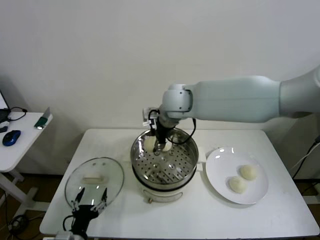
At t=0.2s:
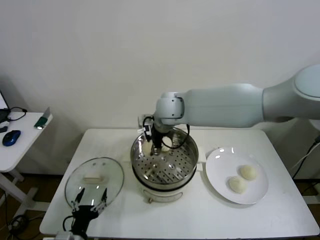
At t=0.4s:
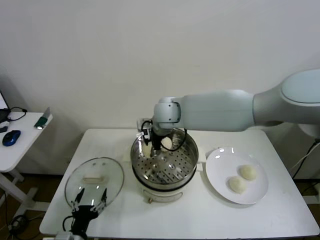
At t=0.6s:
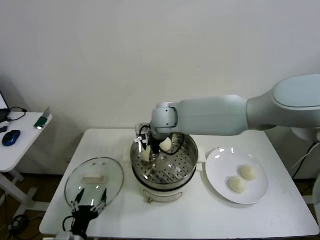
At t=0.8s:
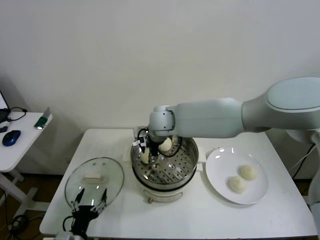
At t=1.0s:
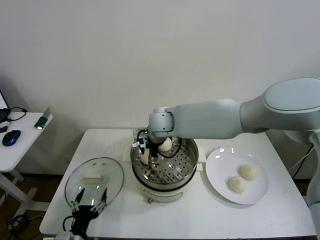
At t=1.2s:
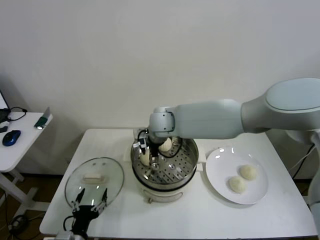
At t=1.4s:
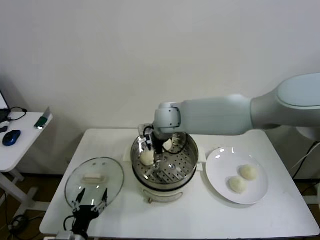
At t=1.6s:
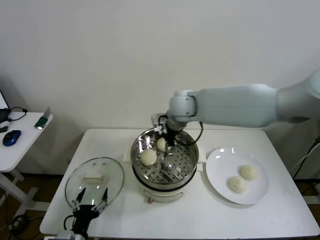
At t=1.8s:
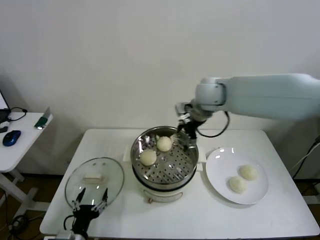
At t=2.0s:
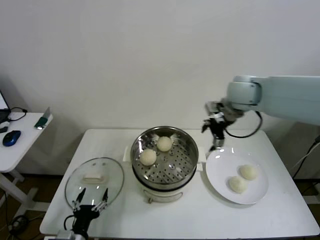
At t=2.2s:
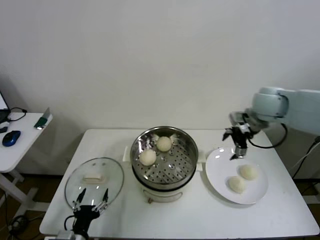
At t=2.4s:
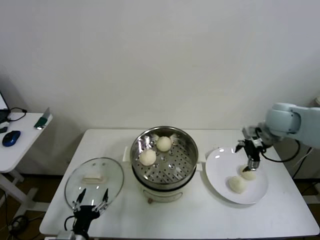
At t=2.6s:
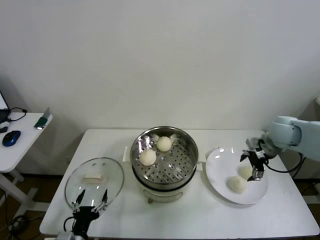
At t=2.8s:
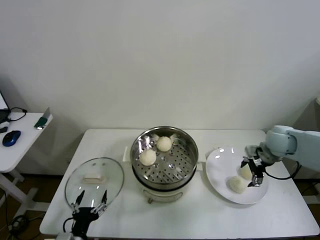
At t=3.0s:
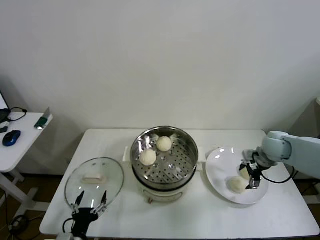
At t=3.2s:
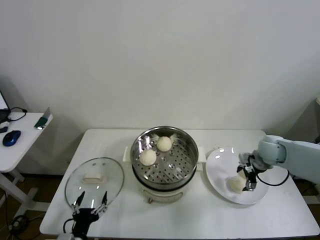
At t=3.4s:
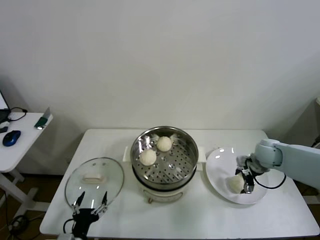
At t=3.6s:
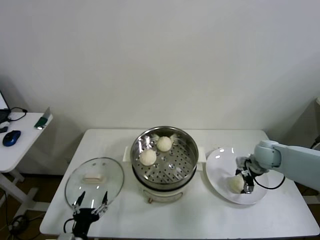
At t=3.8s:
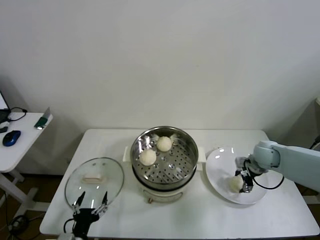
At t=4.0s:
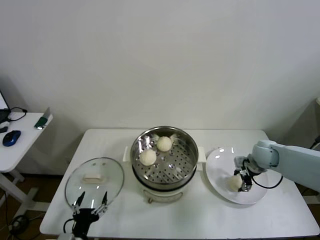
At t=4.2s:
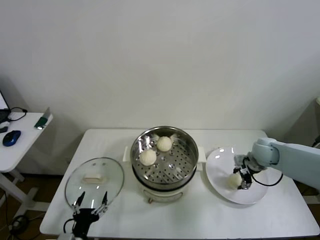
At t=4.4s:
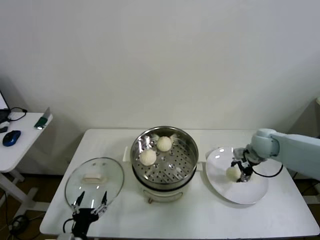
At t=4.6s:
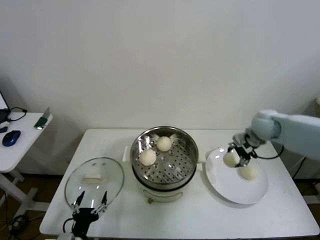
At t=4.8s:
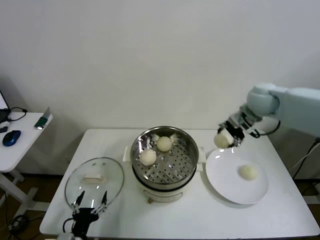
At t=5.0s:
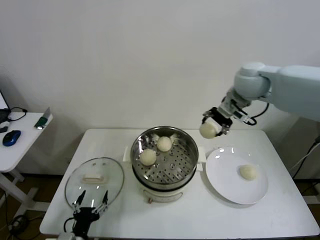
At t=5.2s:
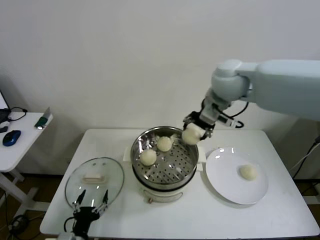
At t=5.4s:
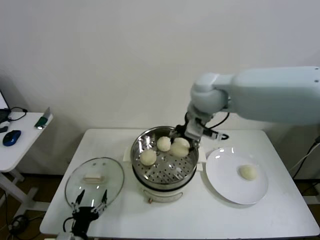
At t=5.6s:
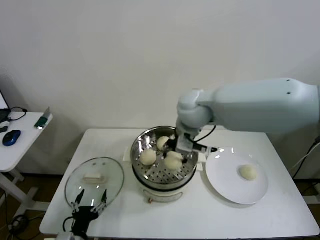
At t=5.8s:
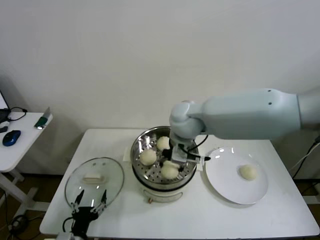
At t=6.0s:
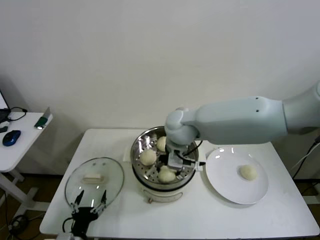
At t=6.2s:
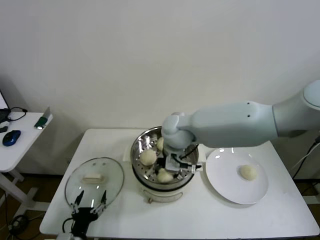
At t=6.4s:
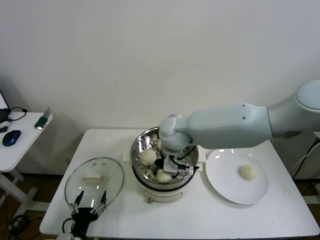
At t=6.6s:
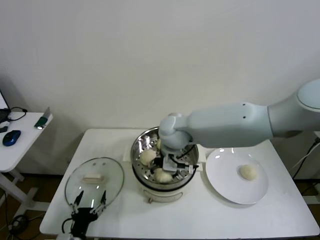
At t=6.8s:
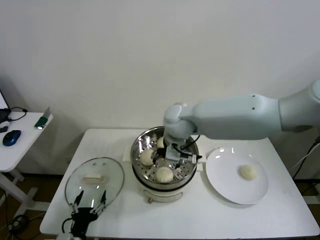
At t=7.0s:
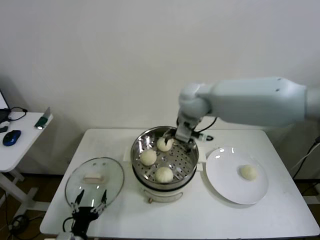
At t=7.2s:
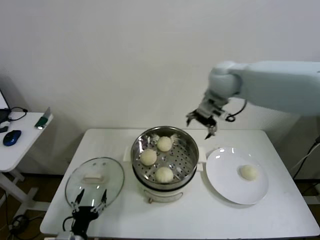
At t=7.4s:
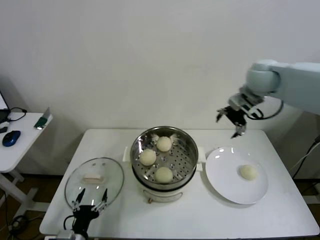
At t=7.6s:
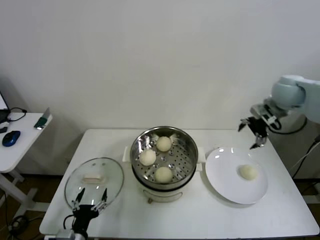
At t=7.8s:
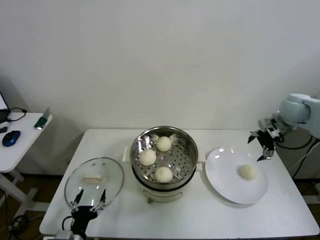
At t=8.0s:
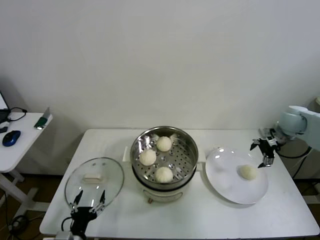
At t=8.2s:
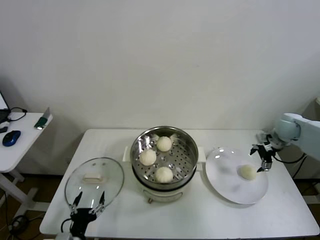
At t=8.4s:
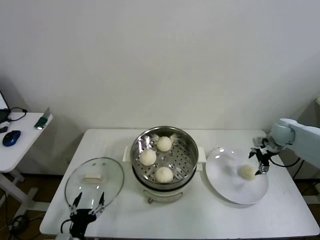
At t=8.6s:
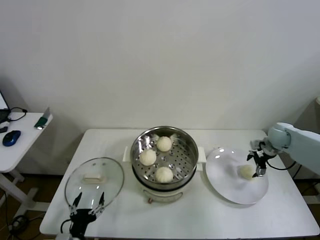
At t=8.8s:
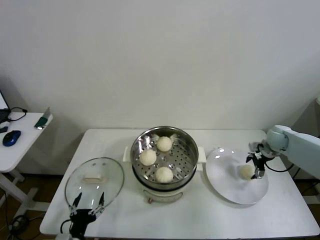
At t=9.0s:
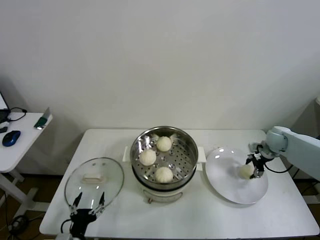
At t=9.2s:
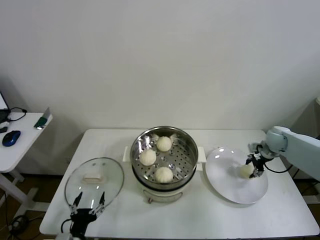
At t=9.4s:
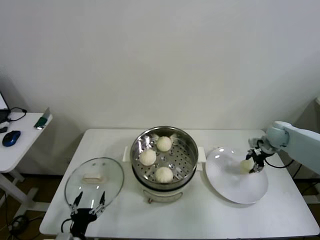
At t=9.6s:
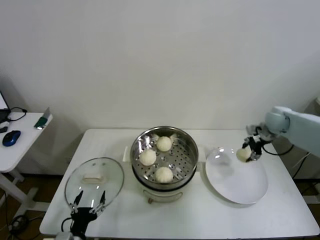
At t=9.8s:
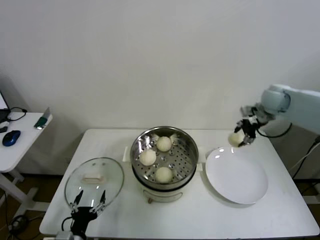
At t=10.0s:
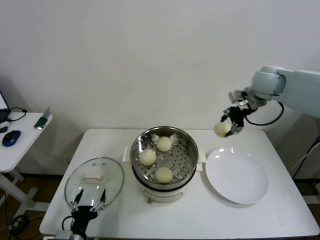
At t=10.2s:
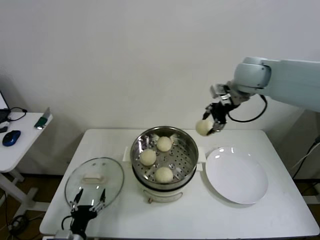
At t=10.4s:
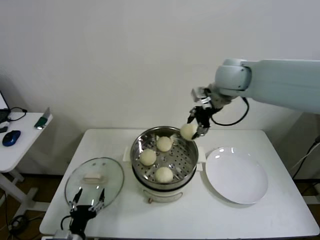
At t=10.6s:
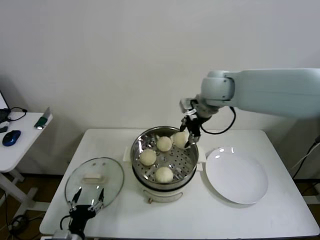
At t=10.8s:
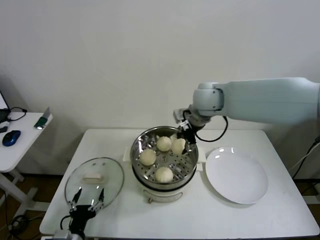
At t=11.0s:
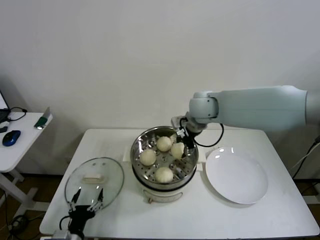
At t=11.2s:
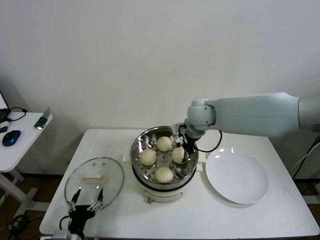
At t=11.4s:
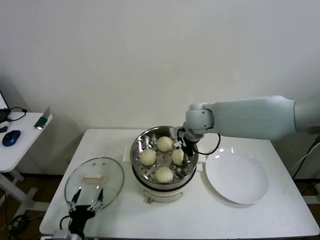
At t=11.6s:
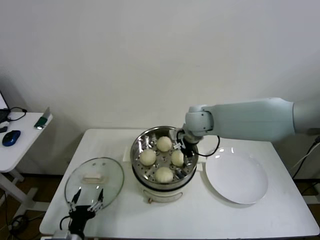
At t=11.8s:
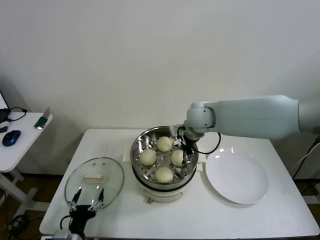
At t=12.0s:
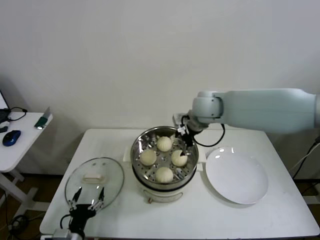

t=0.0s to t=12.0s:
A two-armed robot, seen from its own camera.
Step, t=1.6s to t=3.8s: Grasp the baozi in the plate with right gripper.
Step, t=4.2s to t=6.6s: Place the baozi on the steamer with right gripper.
Step, t=7.0s to t=9.0s: Grasp the baozi in the plate with right gripper.
Step, t=9.4s to t=11.8s: Place the baozi on the steamer with right gripper.
t=0.0s to t=1.6s: The right gripper goes about 5 cm to the right, and opens.
t=1.6s to t=3.0s: The right gripper heads to the right and downward, covering about 35 cm.
t=3.0s to t=4.4s: The right gripper closes up.
t=4.4s to t=6.0s: The right gripper shifts approximately 30 cm to the left.
t=6.0s to t=7.6s: The right gripper shifts approximately 35 cm to the right, and opens up.
t=7.6s to t=9.0s: The right gripper travels downward by roughly 20 cm, and closes.
t=9.0s to t=10.4s: The right gripper travels upward and to the left by roughly 40 cm, and closes.
t=10.4s to t=12.0s: The right gripper shifts about 10 cm downward and to the left, and opens up.

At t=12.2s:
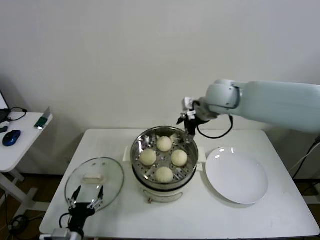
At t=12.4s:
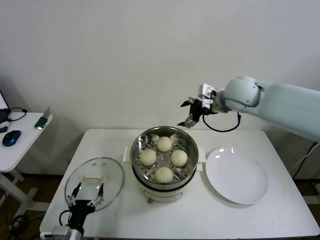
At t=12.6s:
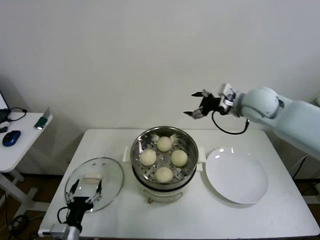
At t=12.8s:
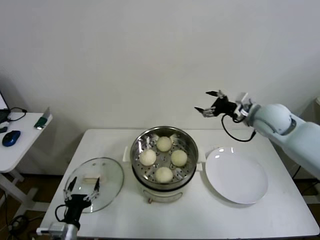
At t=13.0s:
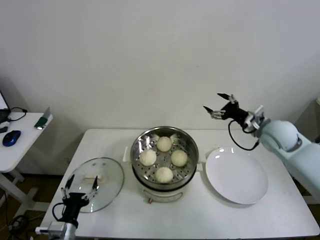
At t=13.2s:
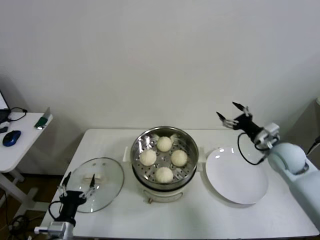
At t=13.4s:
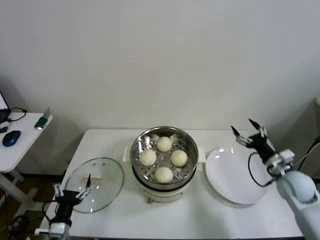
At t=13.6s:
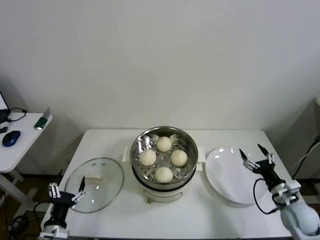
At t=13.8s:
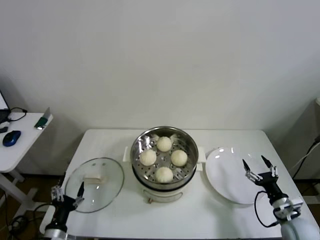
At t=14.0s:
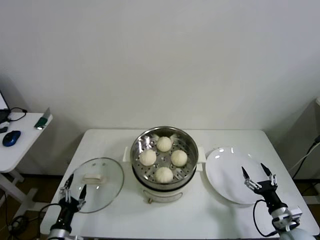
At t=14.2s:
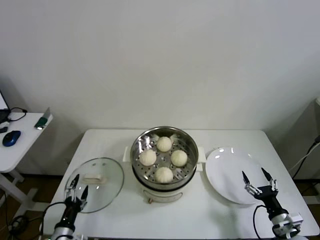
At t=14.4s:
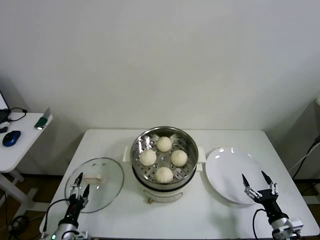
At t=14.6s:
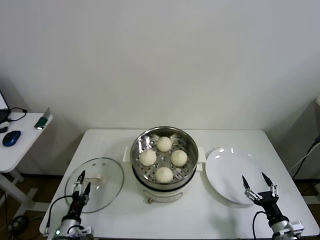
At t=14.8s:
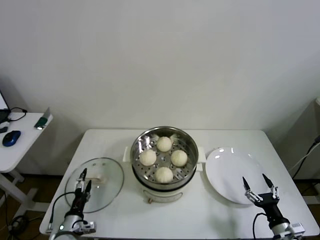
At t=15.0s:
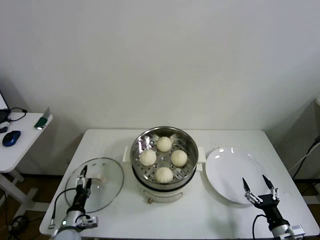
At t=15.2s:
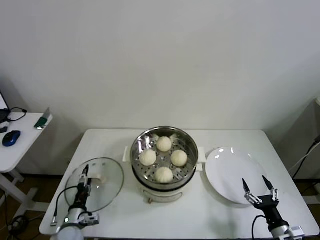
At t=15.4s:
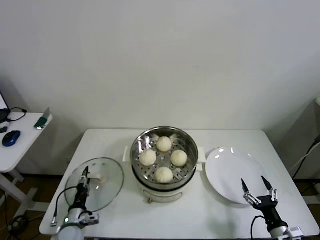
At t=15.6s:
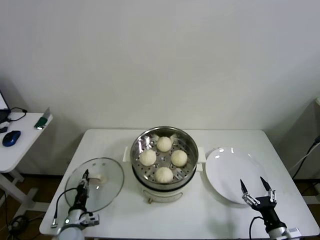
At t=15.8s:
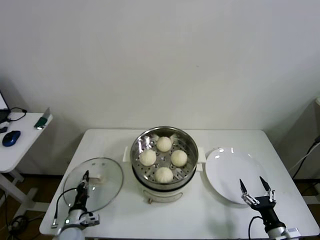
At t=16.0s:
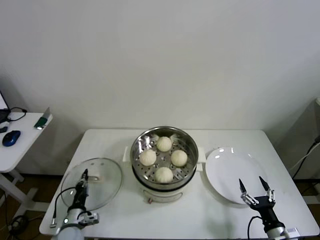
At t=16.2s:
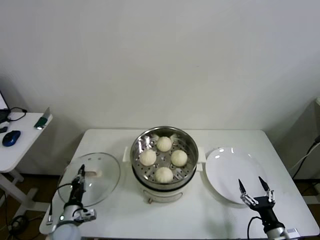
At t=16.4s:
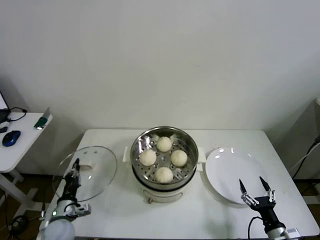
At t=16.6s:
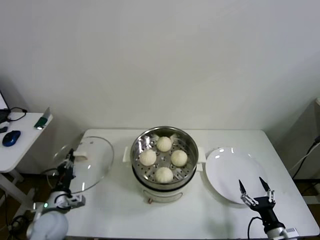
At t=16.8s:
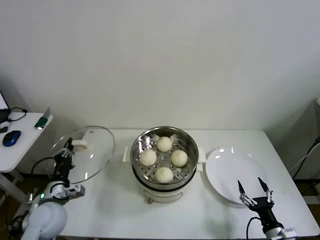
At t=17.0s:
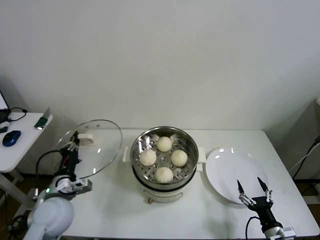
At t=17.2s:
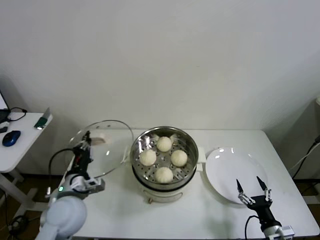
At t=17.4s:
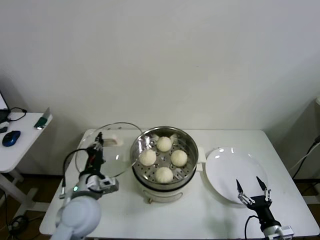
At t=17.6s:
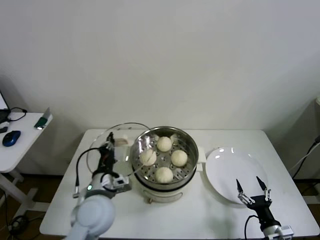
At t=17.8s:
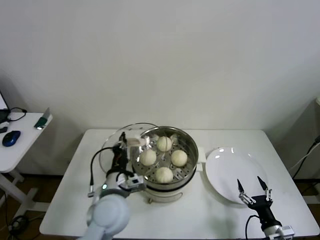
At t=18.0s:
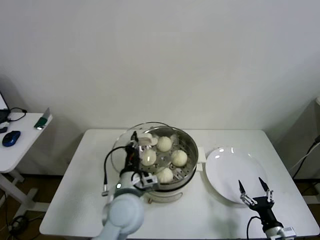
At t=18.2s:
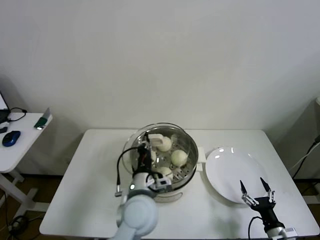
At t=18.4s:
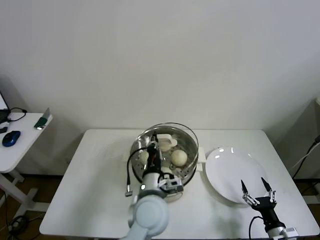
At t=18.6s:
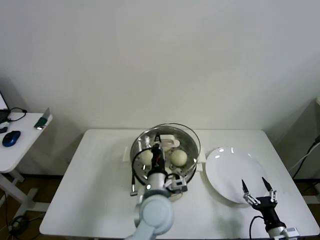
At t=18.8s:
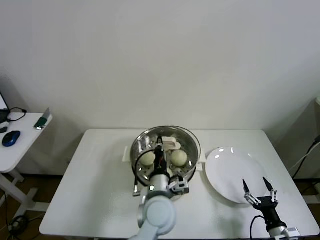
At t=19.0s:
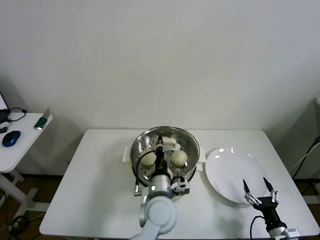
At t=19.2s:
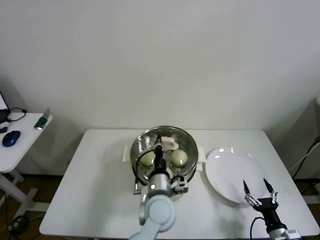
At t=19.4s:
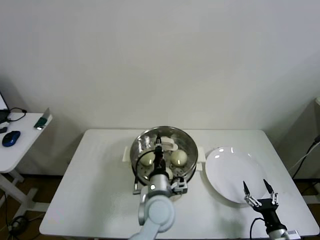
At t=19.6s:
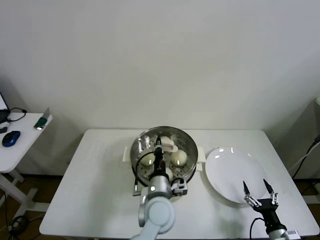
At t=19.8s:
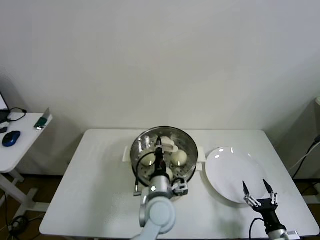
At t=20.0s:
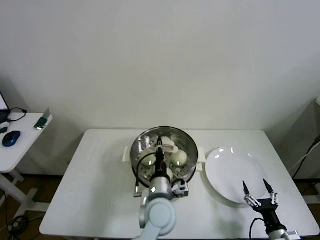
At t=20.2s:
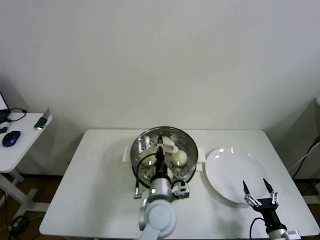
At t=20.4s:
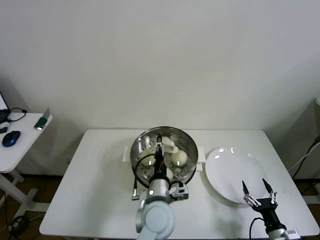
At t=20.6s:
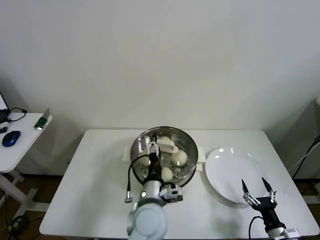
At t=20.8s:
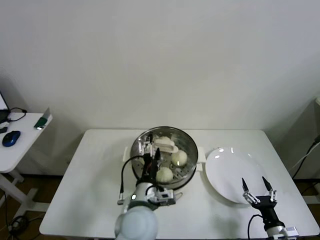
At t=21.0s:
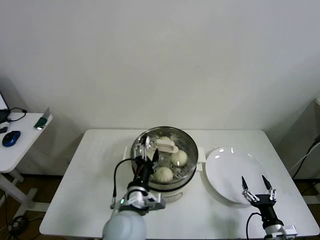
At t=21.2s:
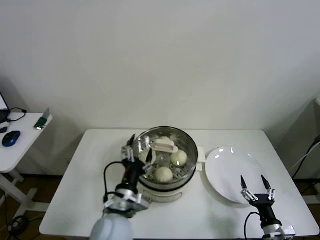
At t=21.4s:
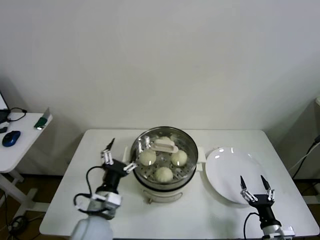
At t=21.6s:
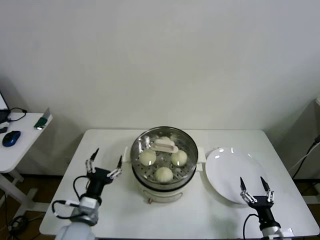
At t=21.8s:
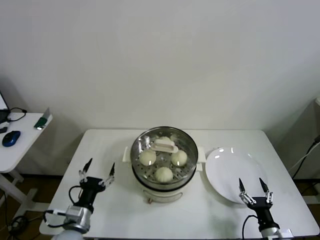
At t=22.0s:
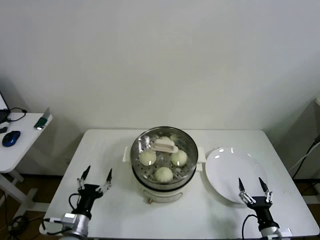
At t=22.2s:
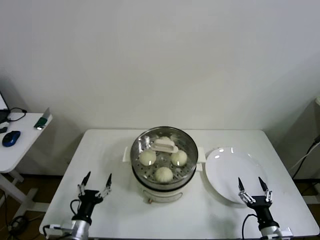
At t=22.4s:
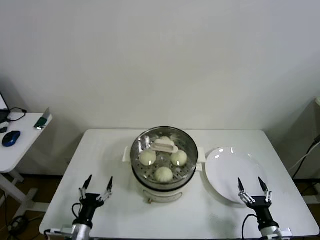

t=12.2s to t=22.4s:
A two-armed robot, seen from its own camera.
Step, t=12.2s to t=15.6s: Grasp the pot lid with left gripper.
Step, t=15.8s to t=20.0s: Place the pot lid on the steamer with left gripper.
t=12.2s to t=13.6s: The left gripper goes roughly 5 cm to the left. The right gripper travels downward, to the right and backward by about 50 cm.
t=13.6s to t=15.2s: The left gripper travels downward and forward by approximately 10 cm; the right gripper moves backward and downward, roughly 15 cm.
t=15.2s to t=16.6s: The left gripper is displaced upward by roughly 10 cm, and closes its fingers.
t=16.6s to t=18.0s: The left gripper goes approximately 25 cm to the right and upward.
t=18.0s to t=19.4s: The left gripper goes about 10 cm to the right.
t=19.4s to t=21.0s: The left gripper is displaced to the left and backward by roughly 10 cm, and opens up.
t=21.0s to t=22.4s: The left gripper goes some 25 cm to the left and downward.
